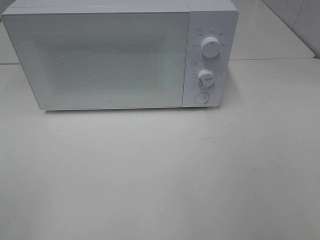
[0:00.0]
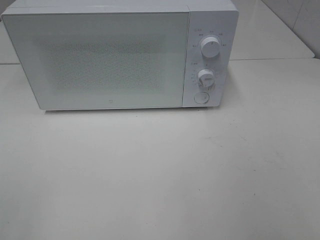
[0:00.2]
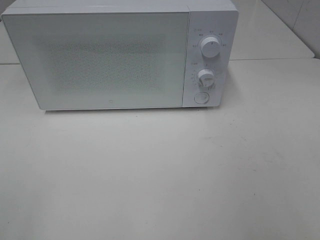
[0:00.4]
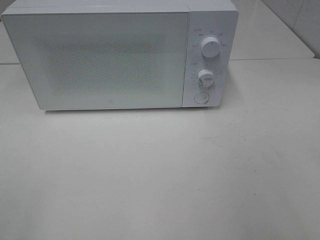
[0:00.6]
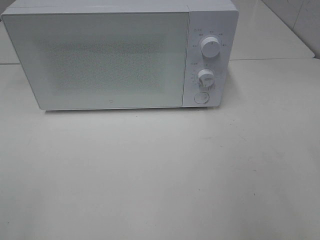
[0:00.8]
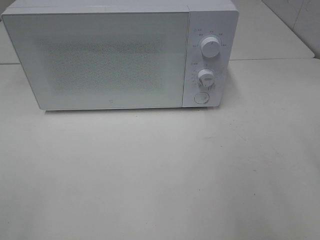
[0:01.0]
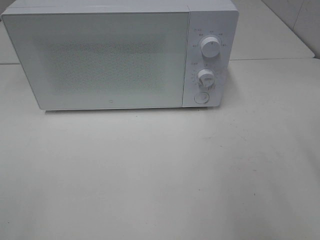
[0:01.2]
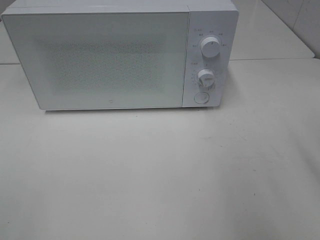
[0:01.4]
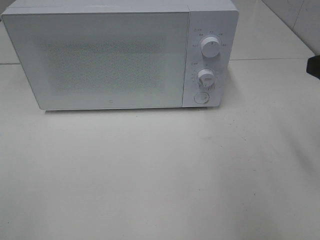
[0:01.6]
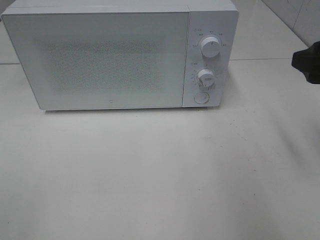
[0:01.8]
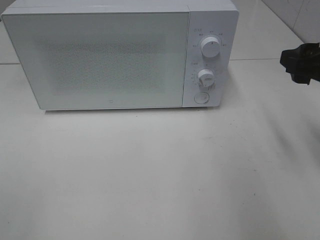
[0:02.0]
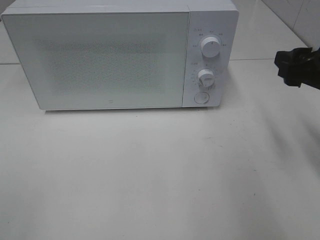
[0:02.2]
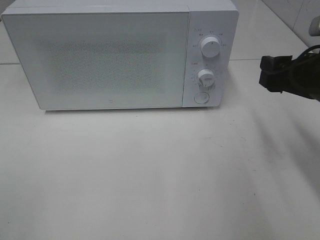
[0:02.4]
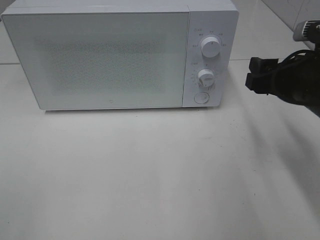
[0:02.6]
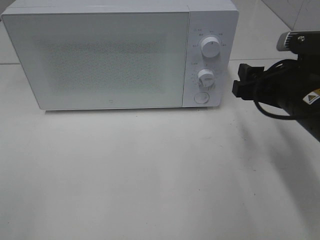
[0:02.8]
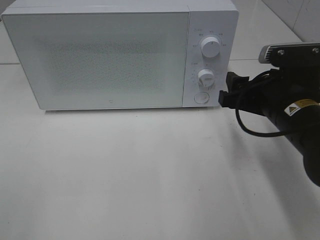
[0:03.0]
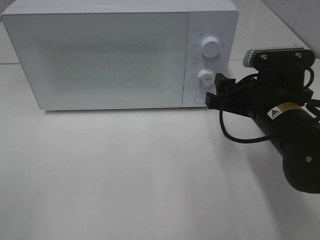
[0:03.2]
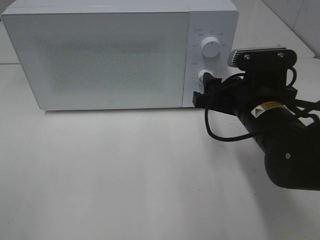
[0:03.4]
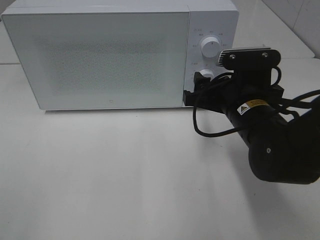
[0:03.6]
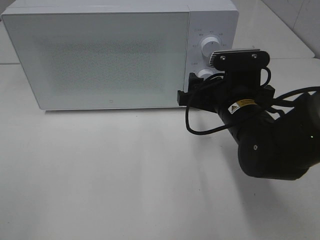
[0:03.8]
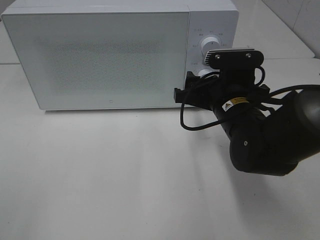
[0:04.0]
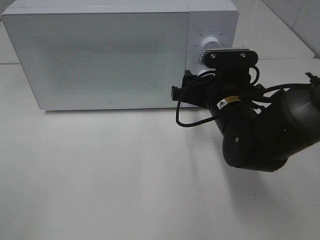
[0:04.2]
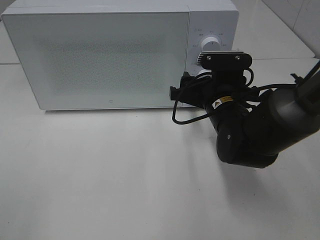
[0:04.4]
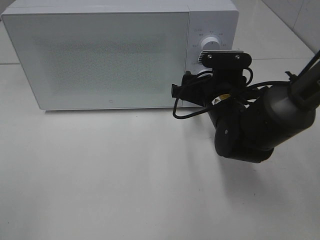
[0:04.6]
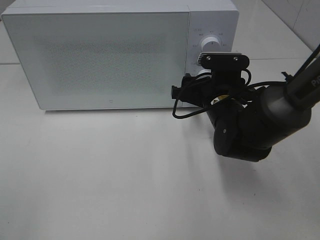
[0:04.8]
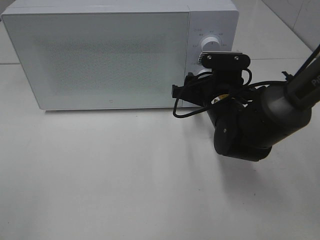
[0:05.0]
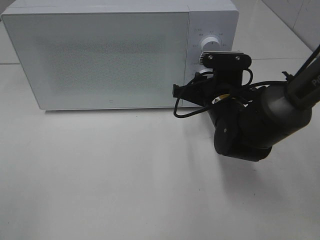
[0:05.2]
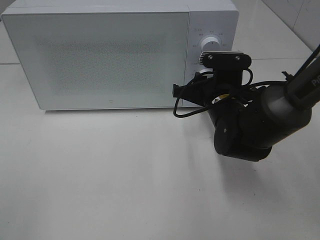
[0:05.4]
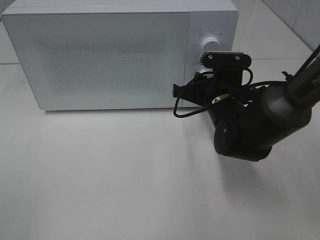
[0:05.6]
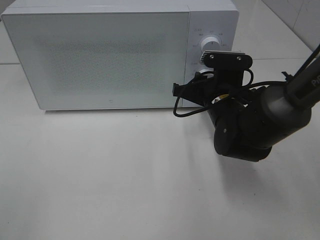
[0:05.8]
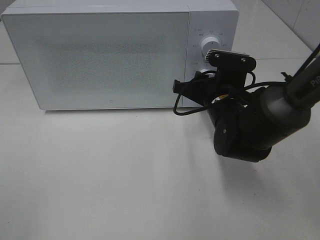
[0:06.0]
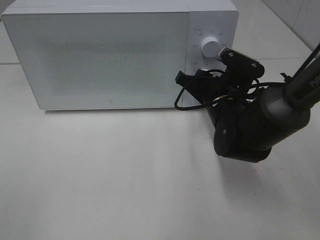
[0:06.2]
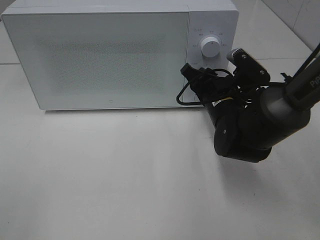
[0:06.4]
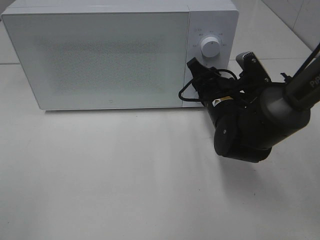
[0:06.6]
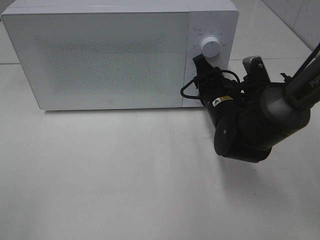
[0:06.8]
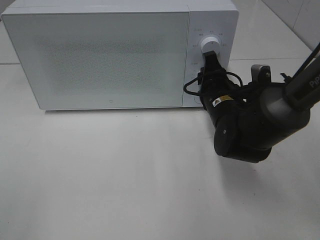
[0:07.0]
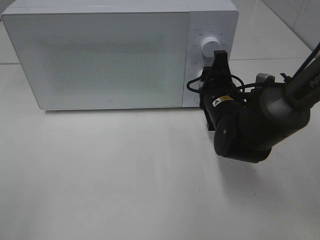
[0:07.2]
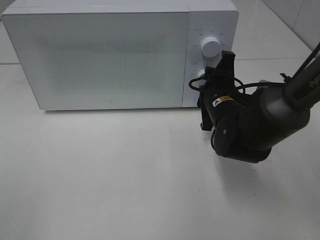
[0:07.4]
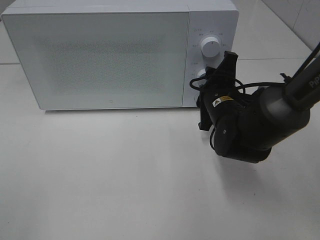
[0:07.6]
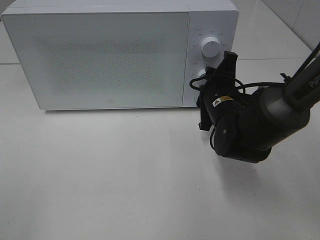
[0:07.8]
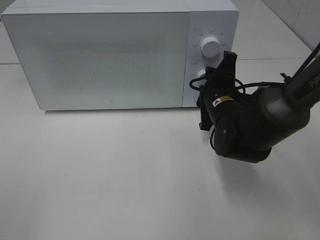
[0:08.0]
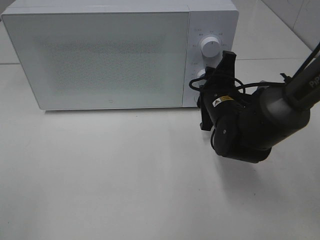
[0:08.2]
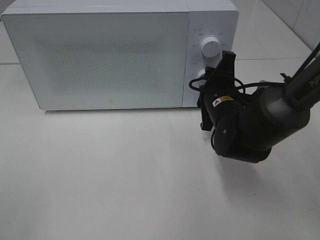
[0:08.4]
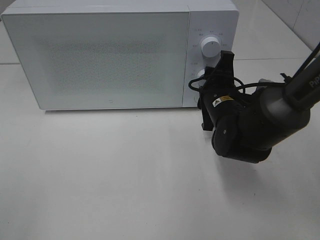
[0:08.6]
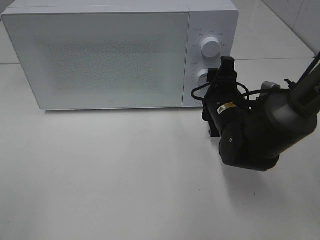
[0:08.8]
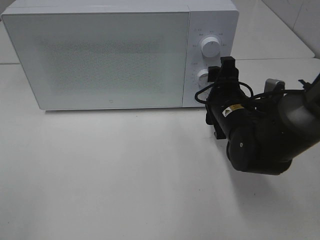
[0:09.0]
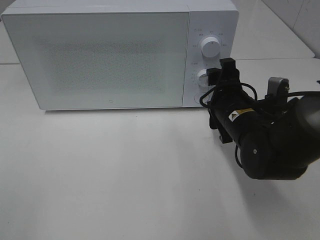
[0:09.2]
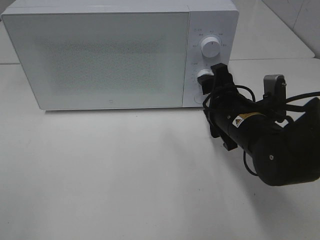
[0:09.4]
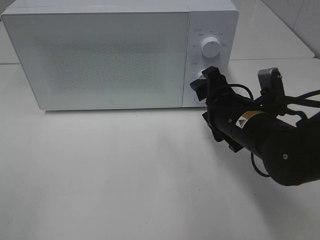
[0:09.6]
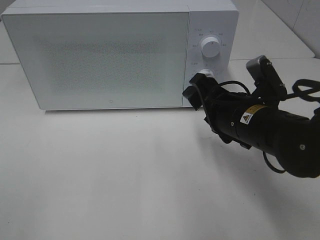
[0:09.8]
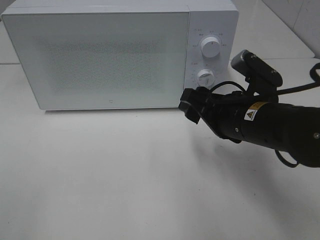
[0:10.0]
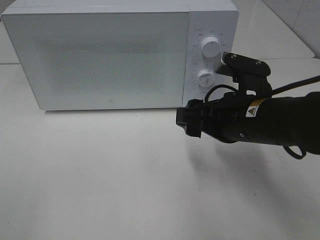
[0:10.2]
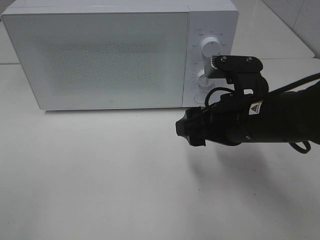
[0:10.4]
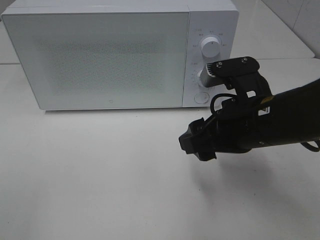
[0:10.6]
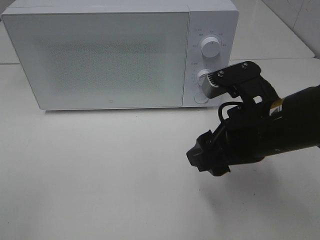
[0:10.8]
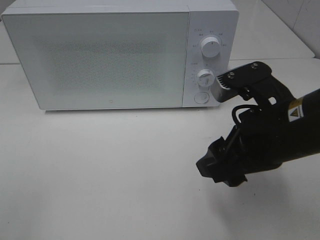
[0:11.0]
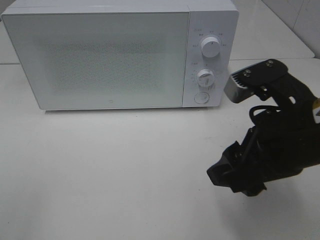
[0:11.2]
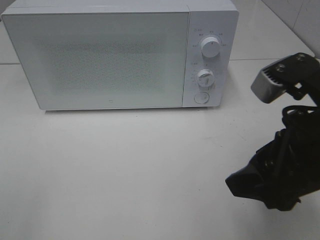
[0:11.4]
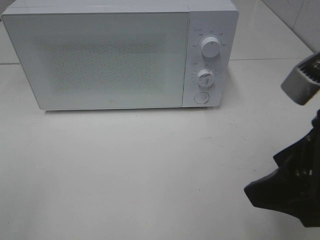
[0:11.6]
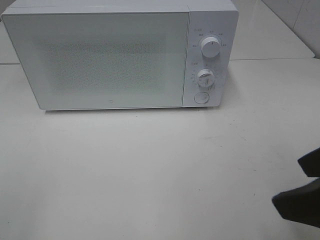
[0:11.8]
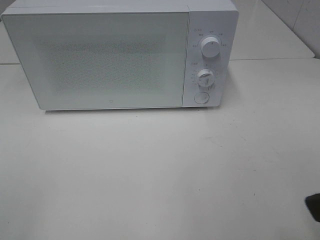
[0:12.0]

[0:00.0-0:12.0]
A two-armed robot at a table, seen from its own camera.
Task of the whole recording: Heat Sandwich.
Step, 0:00.0 to 0:09.2: Right hand: twist timer button.
0:01.6 to 0:03.0: The right gripper goes about 15 cm downward and to the left.
0:03.0 to 0:04.4: The right gripper heads to the left and forward, covering about 10 cm.
0:04.4 to 0:06.0: The right gripper closes up.
0:07.6 to 0:09.0: There are only small adjustments of the grippers.
0:09.0 to 0:10.4: The right gripper is displaced backward and upward by roughly 10 cm.
0:10.4 to 0:12.0: The right gripper shifts roughly 20 cm backward, upward and to the right.

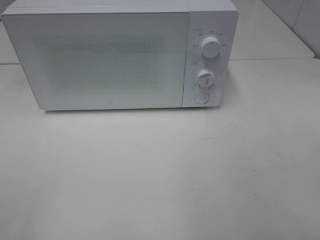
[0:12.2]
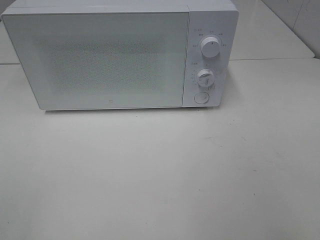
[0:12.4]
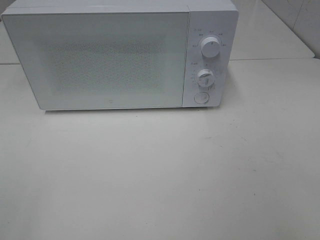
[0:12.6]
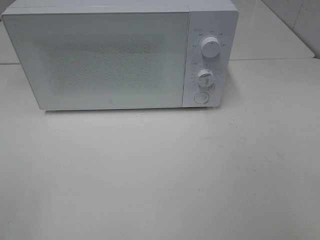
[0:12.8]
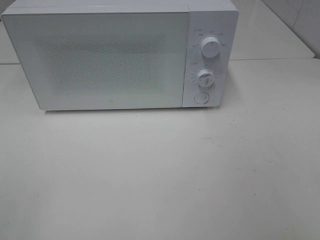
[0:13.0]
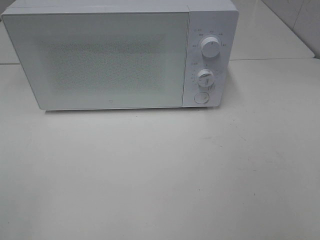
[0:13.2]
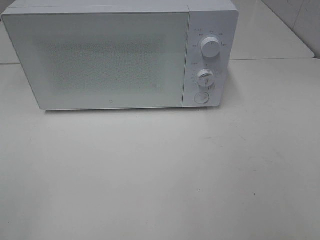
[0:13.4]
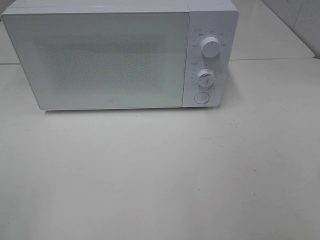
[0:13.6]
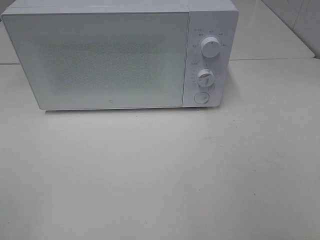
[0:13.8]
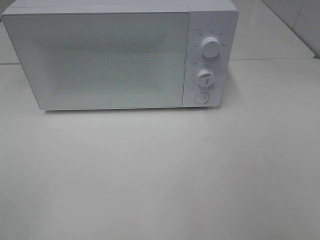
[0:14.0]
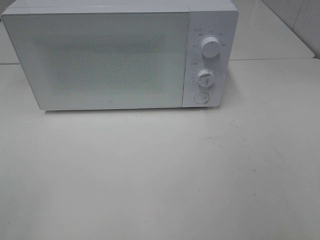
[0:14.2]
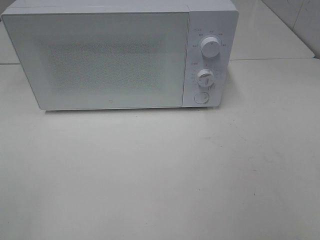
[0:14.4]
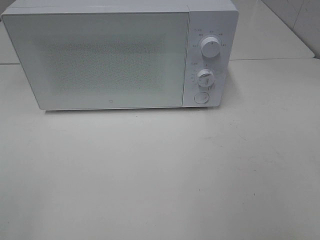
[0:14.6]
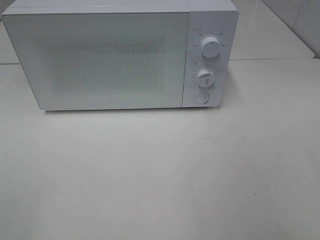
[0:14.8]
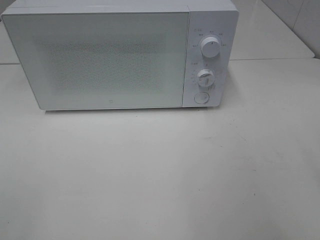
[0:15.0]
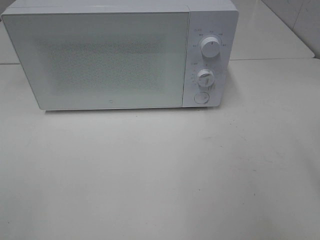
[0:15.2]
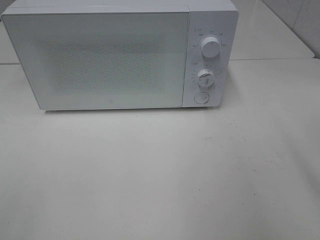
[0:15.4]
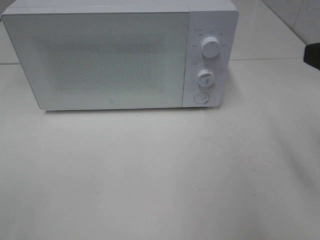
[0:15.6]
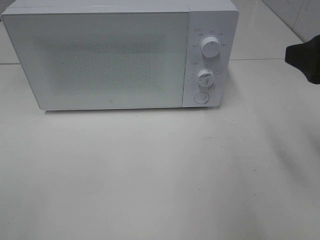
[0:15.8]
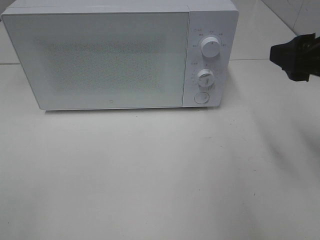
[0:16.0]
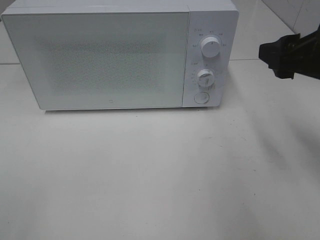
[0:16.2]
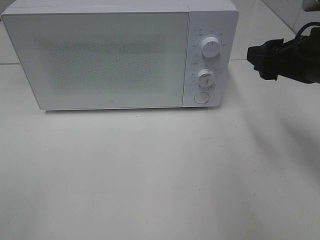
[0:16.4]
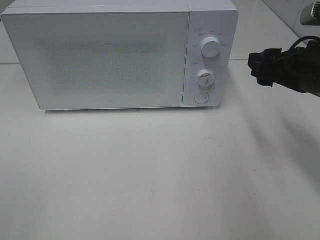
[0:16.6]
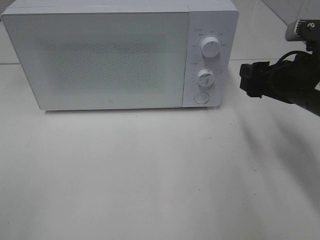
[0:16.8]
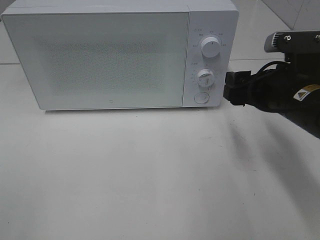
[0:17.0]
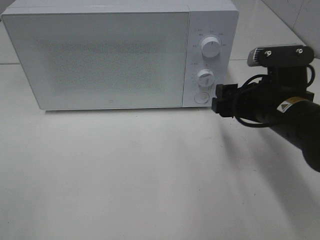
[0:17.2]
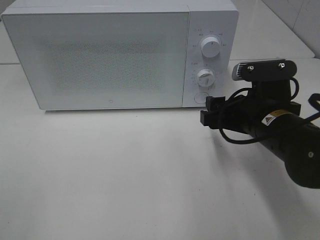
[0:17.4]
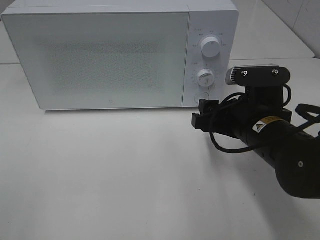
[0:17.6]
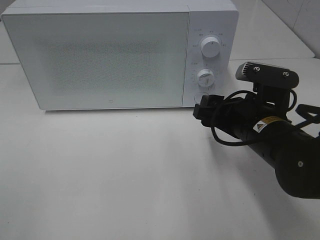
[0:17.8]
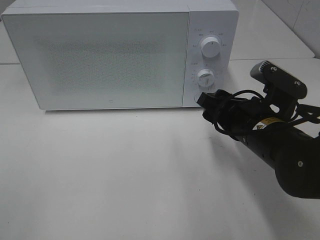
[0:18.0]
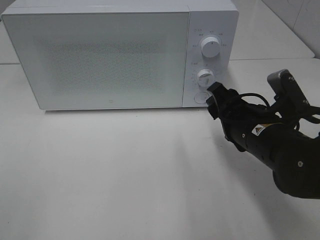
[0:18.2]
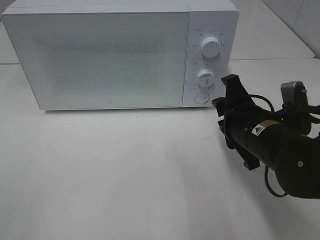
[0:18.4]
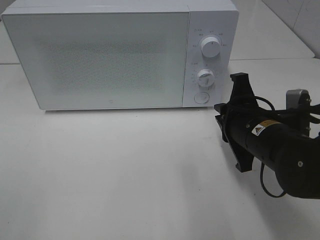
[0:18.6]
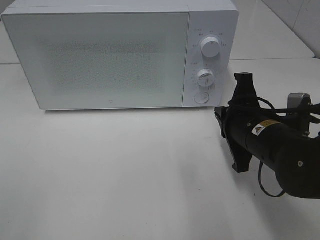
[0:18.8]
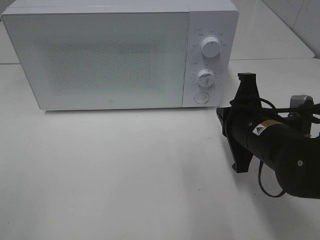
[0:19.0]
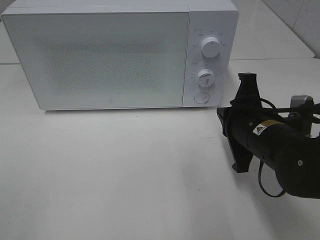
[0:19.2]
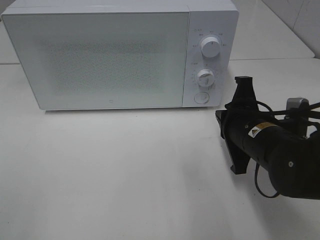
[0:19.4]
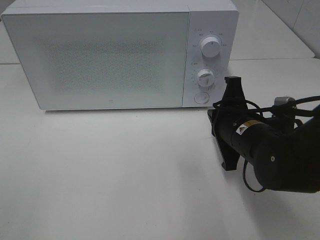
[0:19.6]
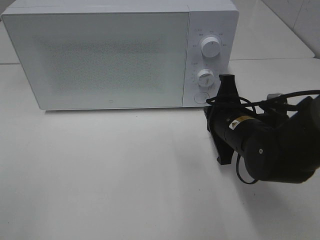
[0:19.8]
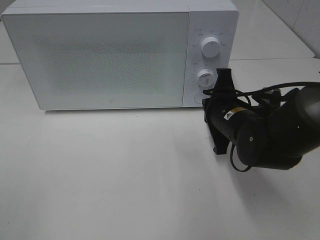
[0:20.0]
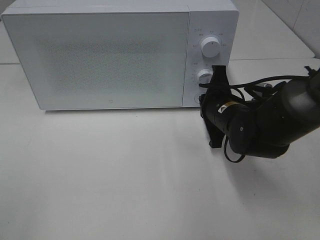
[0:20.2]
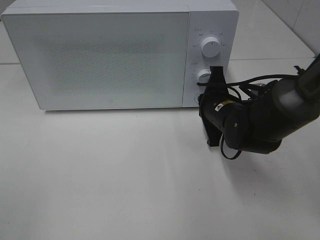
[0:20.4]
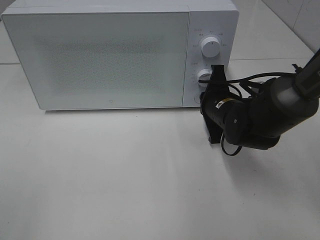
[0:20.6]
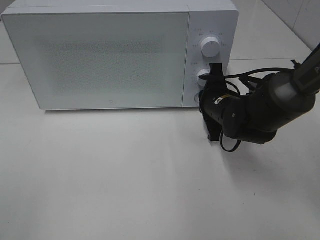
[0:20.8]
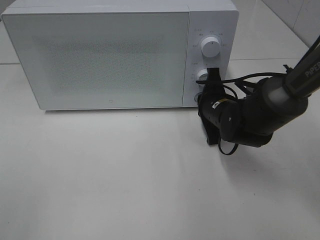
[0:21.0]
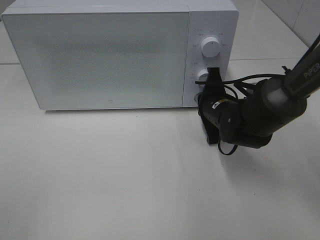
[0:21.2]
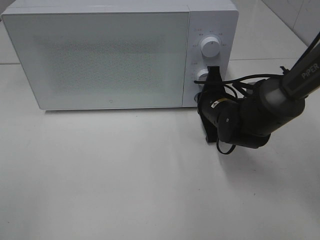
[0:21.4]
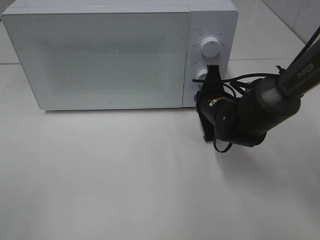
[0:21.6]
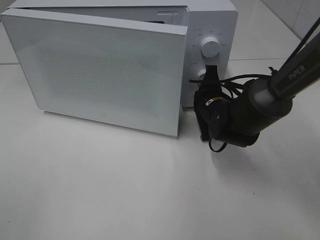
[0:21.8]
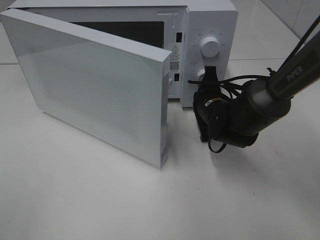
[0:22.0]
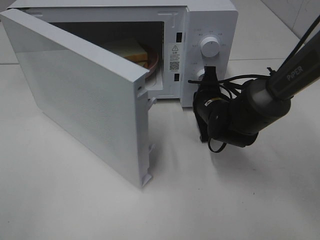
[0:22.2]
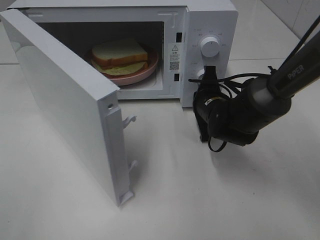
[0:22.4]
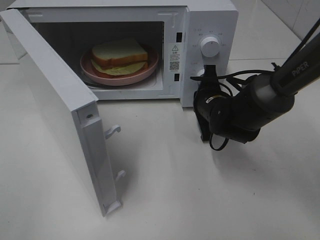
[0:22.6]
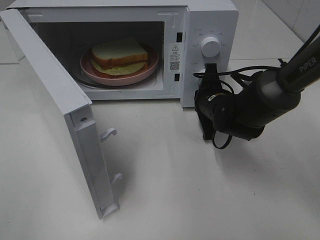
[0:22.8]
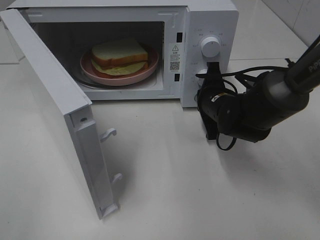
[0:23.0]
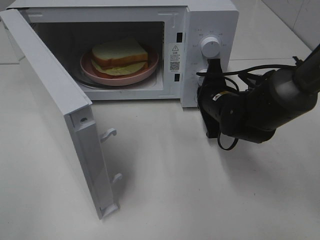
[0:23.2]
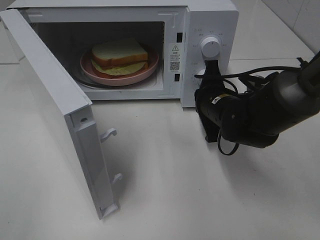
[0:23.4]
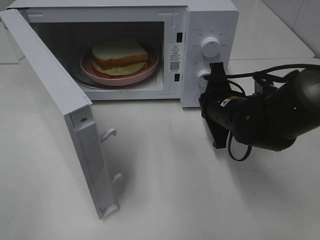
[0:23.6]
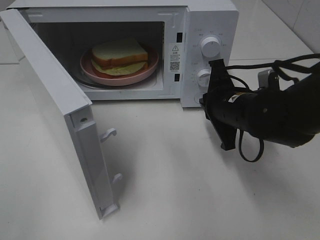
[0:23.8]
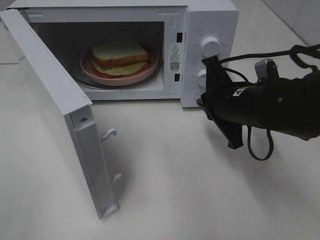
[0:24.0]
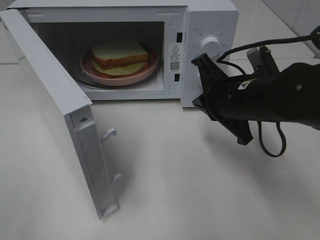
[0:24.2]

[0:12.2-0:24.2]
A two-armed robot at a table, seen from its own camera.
Task of the whole recording: Heat Sandwich.
Step, 0:12.2 to 0:23.4: Right hand: press the switch.
0:15.2 to 0:16.6: The right gripper moves forward and downward, about 15 cm.
0:16.6 to 0:18.2: The right gripper travels to the left and downward by some 10 cm.
0:18.2 to 0:19.8: The right gripper closes its fingers.
0:19.8 to 0:21.2: The right gripper goes about 10 cm forward.
0:22.6 to 0:24.2: The right gripper heads backward and upward, covering about 15 cm.
